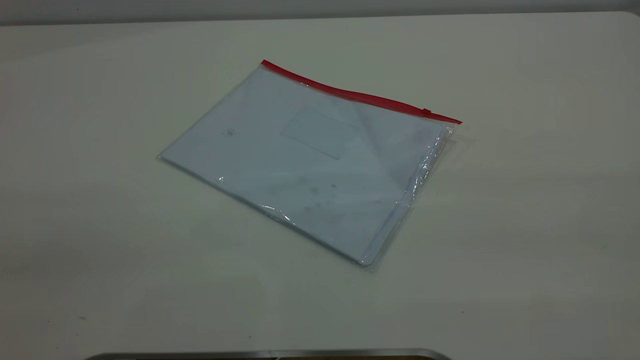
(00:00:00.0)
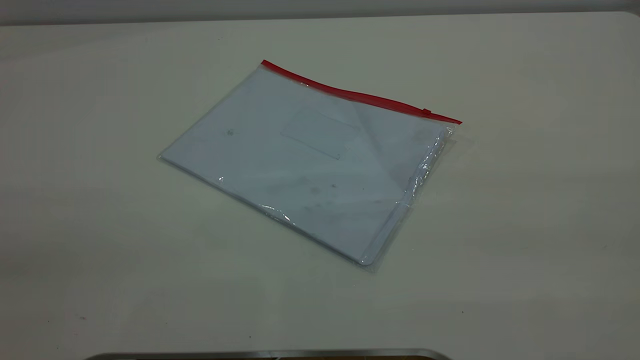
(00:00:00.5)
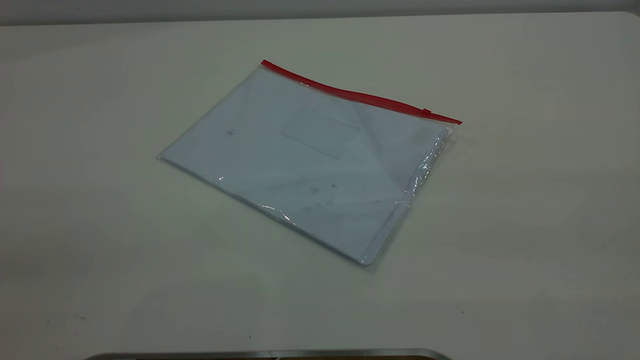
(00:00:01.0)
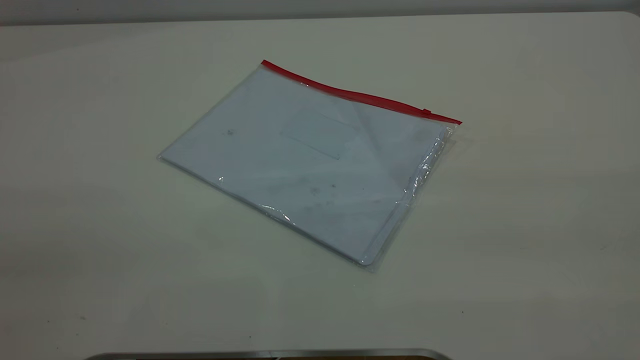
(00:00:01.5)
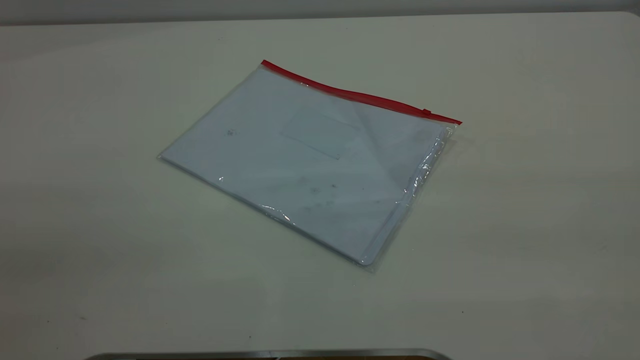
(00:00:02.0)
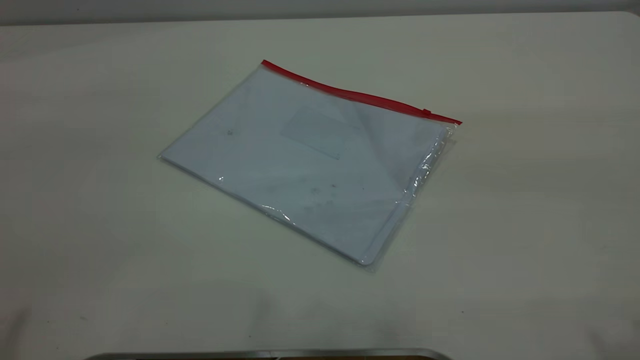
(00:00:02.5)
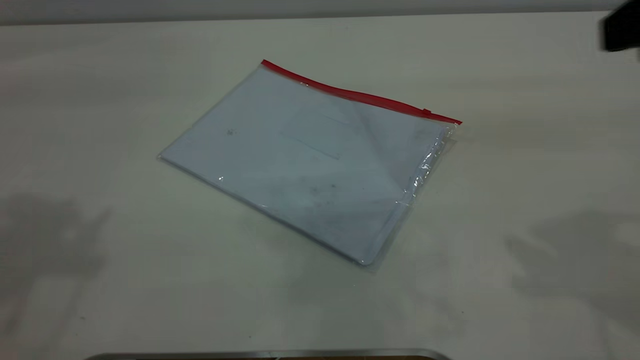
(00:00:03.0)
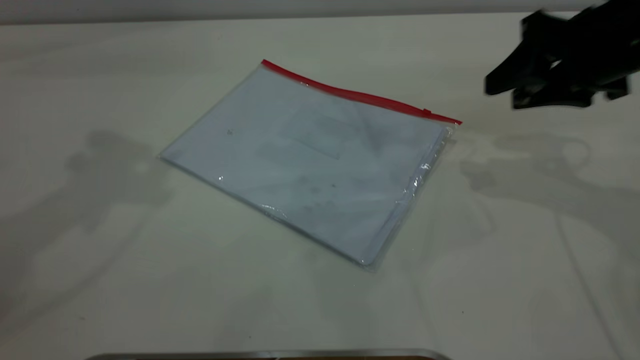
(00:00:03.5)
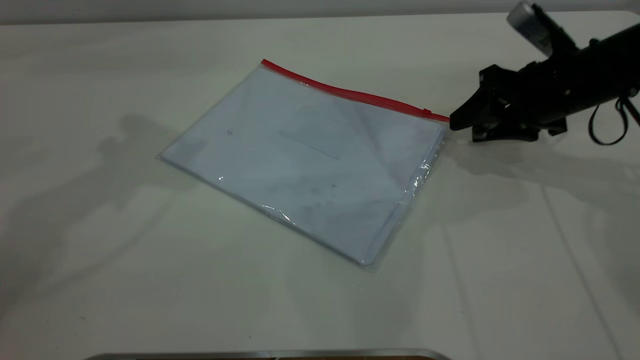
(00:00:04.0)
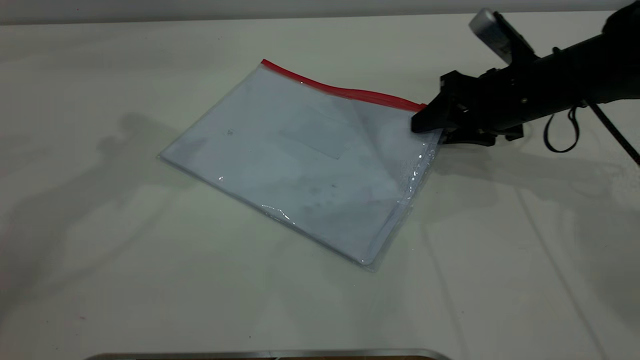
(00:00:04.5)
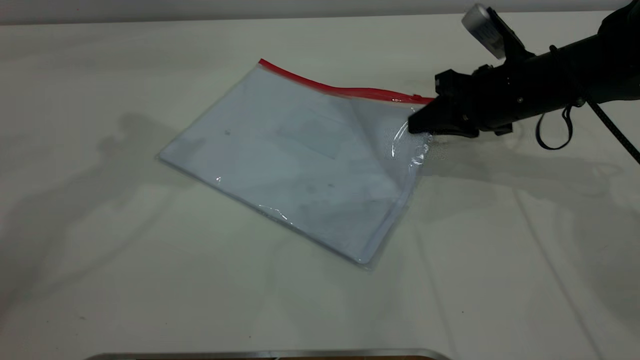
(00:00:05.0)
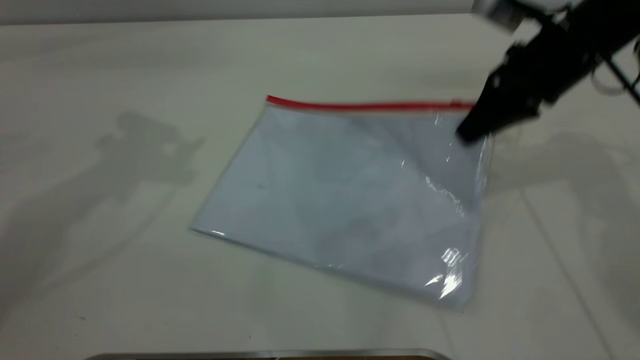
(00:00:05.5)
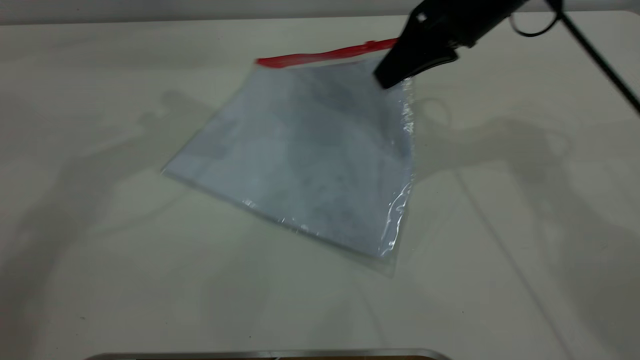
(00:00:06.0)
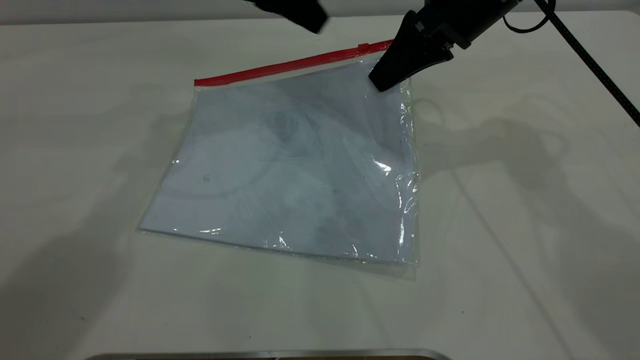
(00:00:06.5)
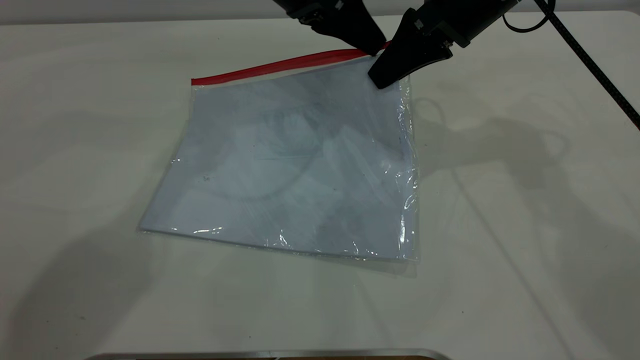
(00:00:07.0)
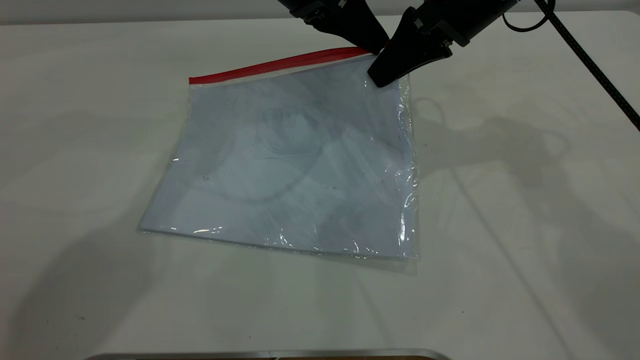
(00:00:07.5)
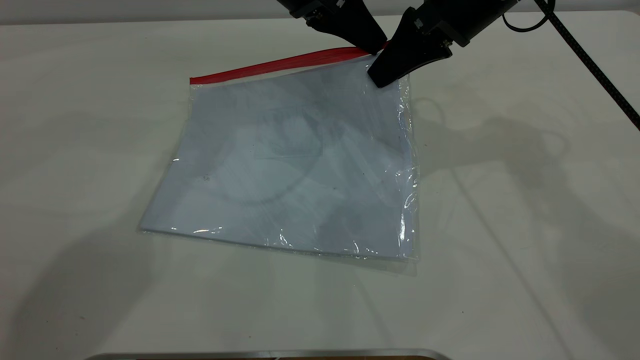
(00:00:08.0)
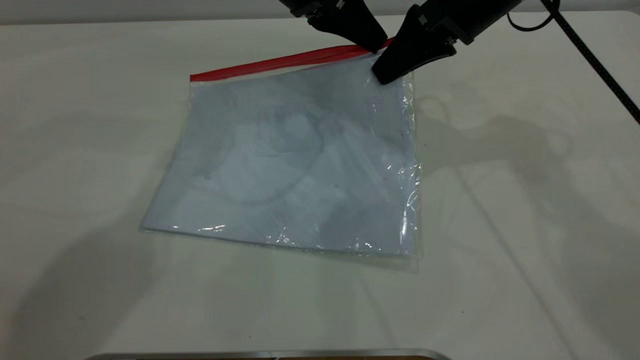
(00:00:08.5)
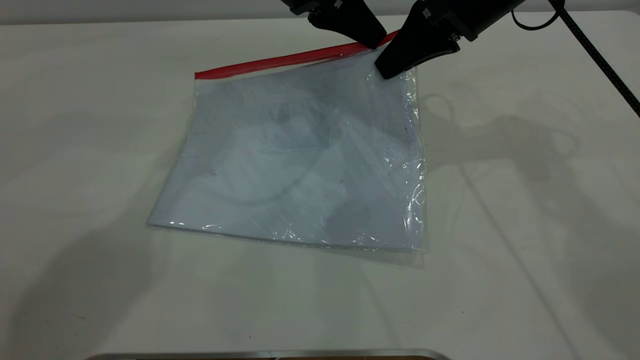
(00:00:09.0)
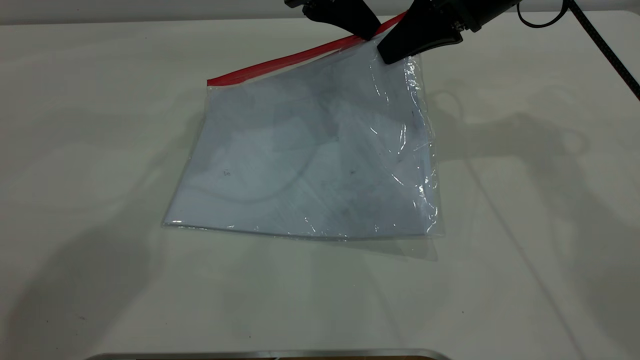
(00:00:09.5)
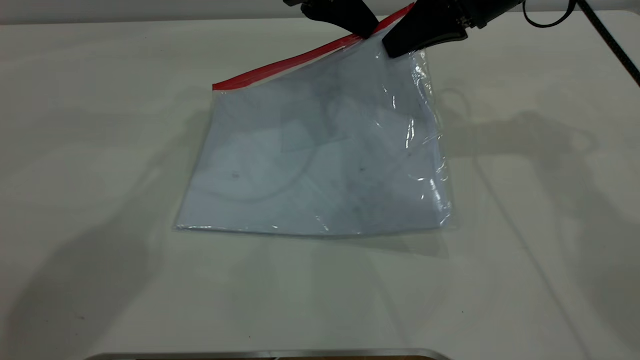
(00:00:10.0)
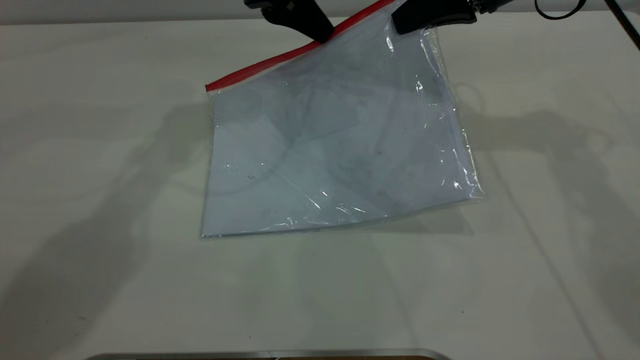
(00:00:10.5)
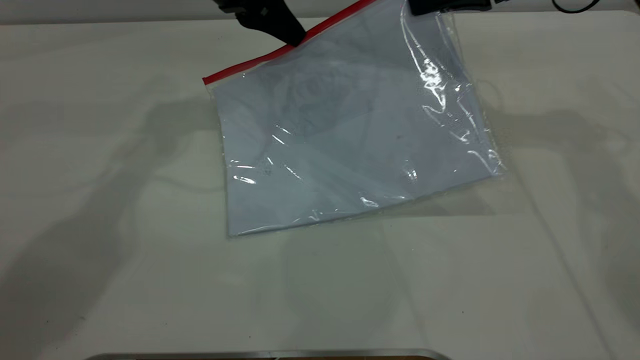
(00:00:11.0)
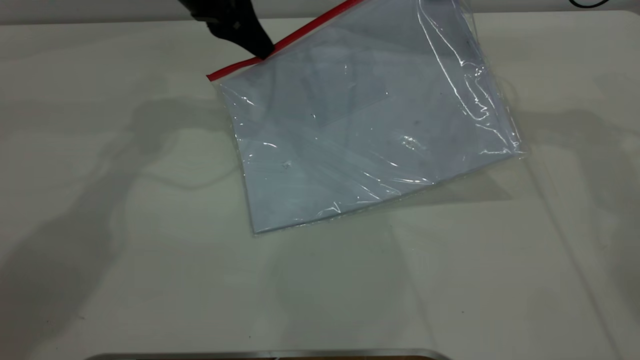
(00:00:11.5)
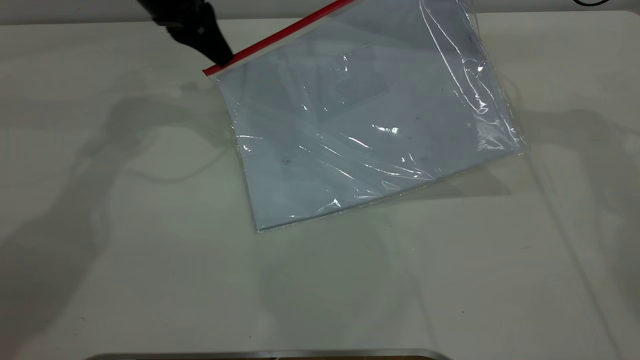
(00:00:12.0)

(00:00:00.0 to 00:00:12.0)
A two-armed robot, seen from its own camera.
Step, 00:00:00.0 - 00:00:06.0: Pick up the transparent plastic bag with the right gripper.
00:00:02.0 - 00:00:04.0: The right gripper goes some 50 cm forward and downward.
00:00:04.0 - 00:00:06.0: The left gripper is displaced forward and downward by about 10 cm. The right gripper travels to the left and upward by some 15 cm, and closes its fingers.
00:00:06.0 - 00:00:08.0: The left gripper travels to the right and downward by about 15 cm, and closes its fingers.
00:00:08.0 - 00:00:10.0: The grippers stay close to where they were, moving slightly.
00:00:10.0 - 00:00:12.0: The right gripper heads to the right, covering about 5 cm; the left gripper goes about 15 cm to the left.

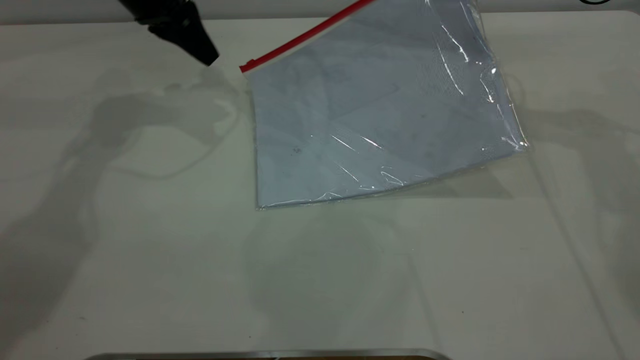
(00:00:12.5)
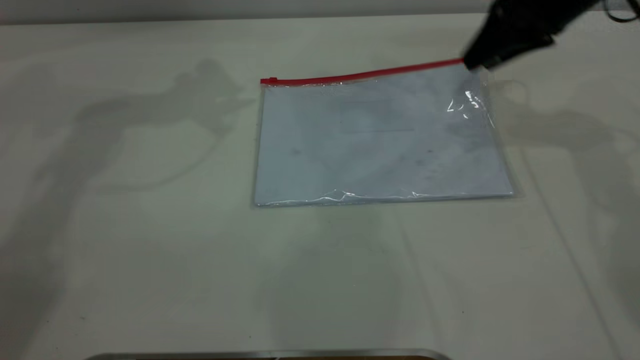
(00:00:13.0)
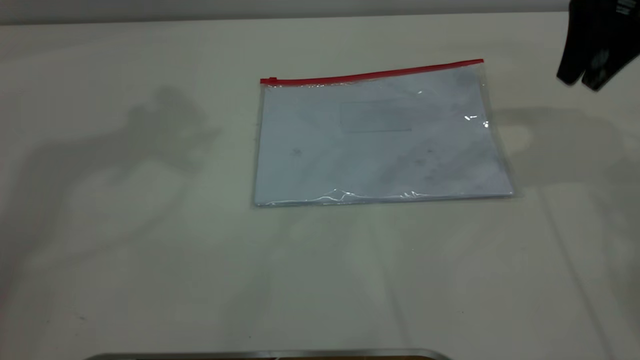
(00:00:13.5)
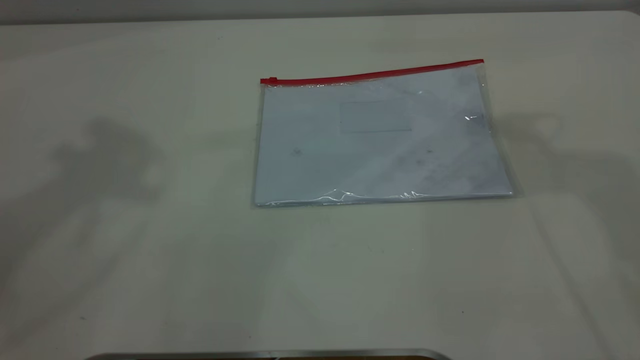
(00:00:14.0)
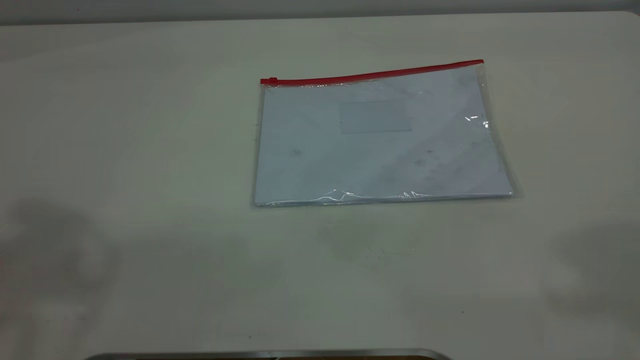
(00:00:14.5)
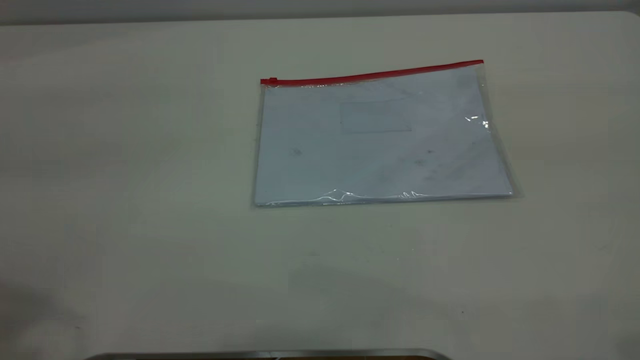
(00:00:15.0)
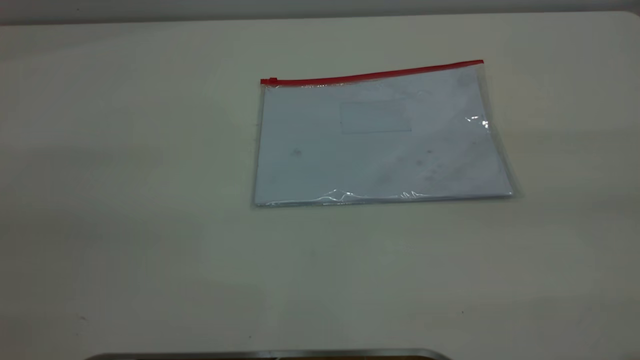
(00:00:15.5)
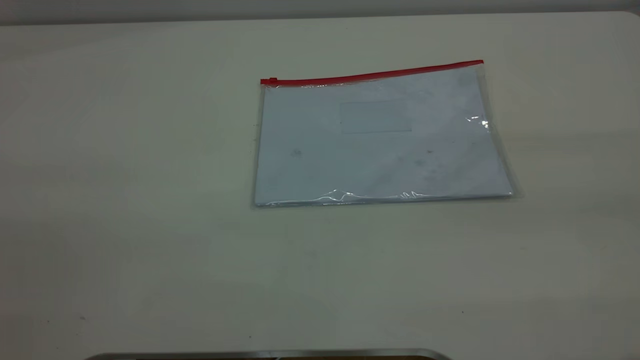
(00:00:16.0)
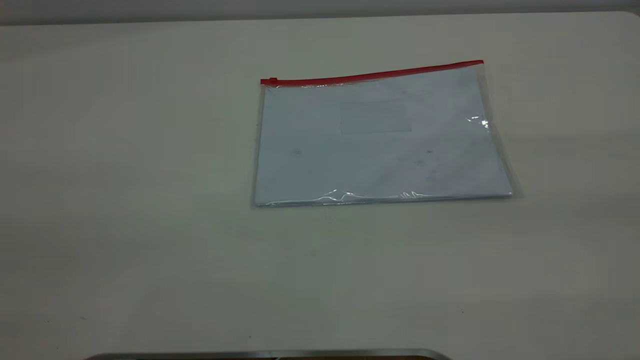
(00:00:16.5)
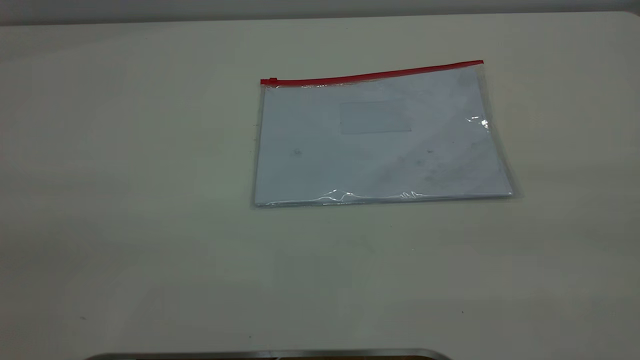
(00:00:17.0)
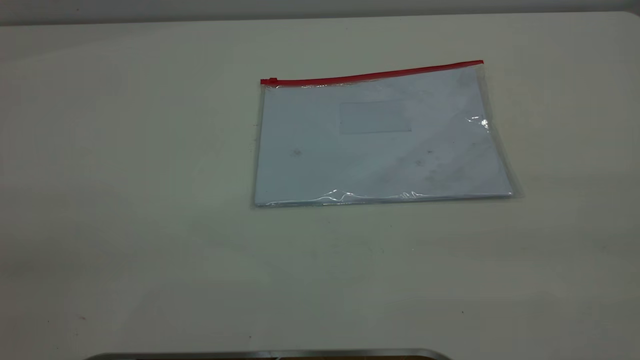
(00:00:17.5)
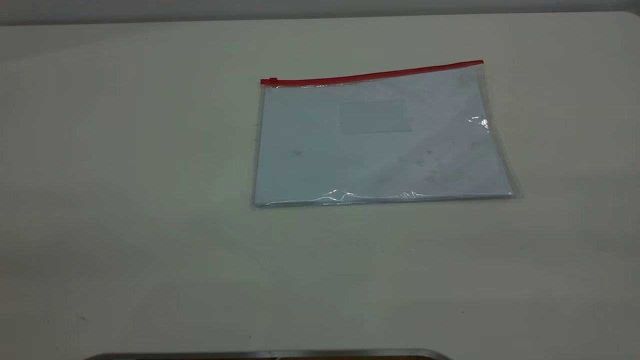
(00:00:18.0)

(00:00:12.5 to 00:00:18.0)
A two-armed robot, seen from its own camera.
Step, 00:00:13.0 - 00:00:13.5: Place the transparent plastic bag.
00:00:12.5 - 00:00:14.5: Both grippers travel together upward and backward, roughly 40 cm. The right gripper opens.
